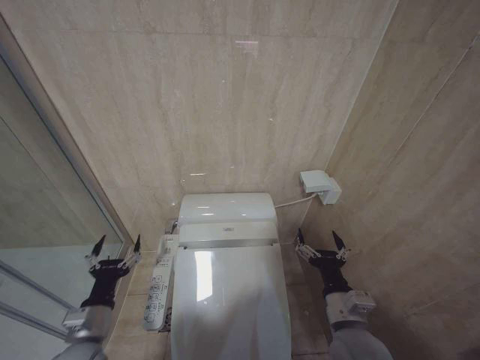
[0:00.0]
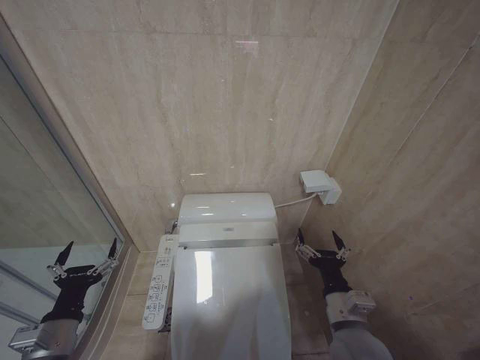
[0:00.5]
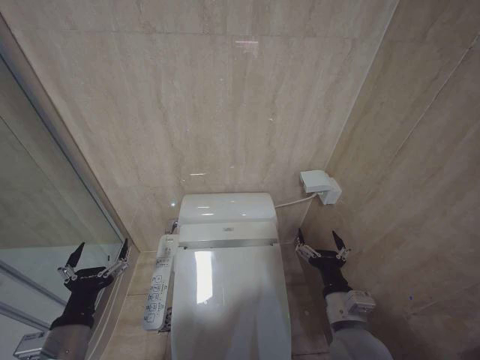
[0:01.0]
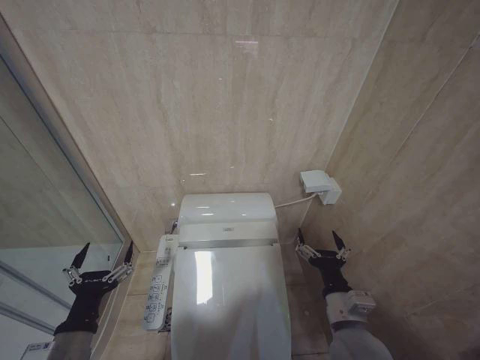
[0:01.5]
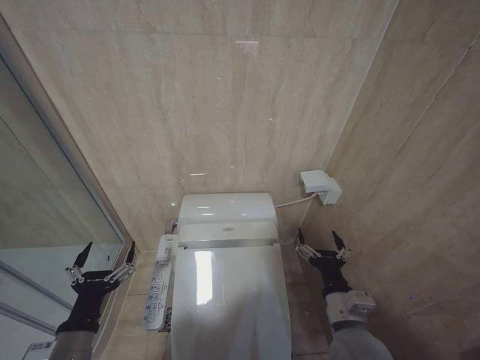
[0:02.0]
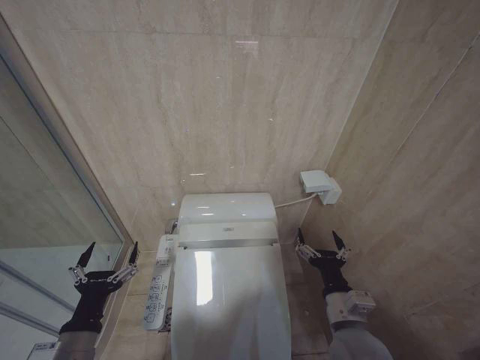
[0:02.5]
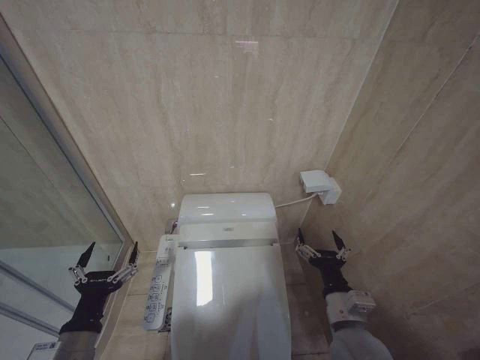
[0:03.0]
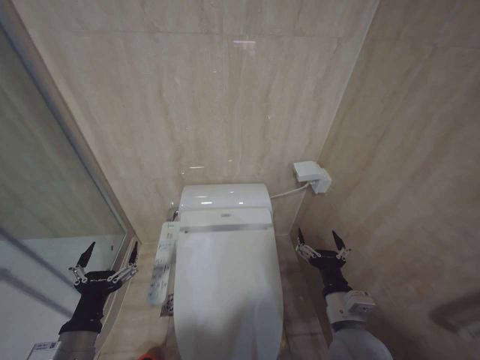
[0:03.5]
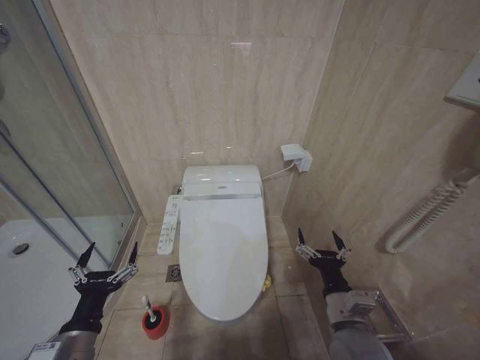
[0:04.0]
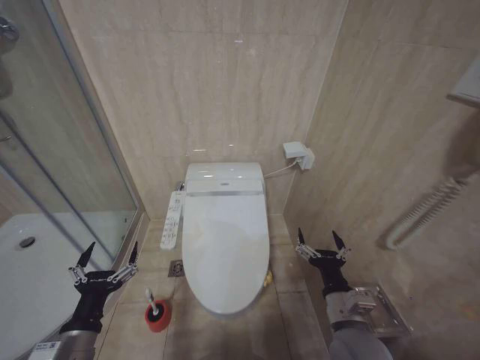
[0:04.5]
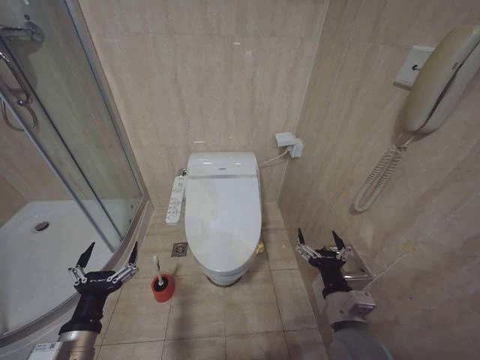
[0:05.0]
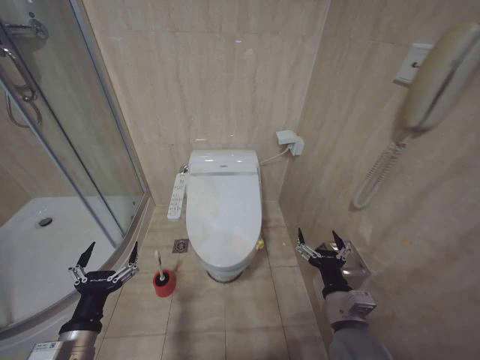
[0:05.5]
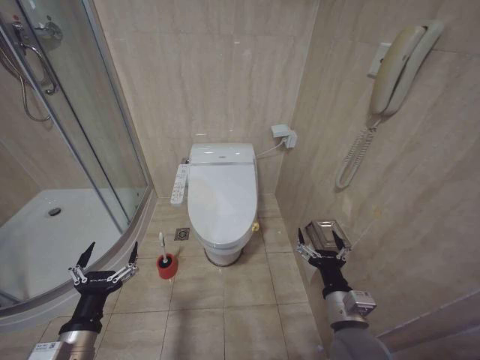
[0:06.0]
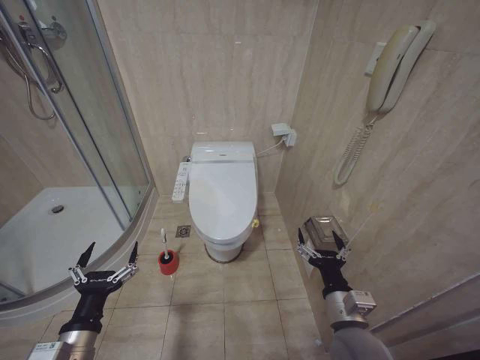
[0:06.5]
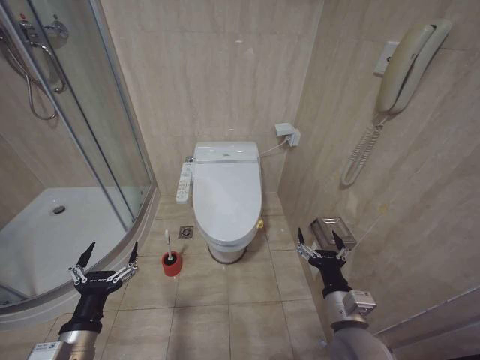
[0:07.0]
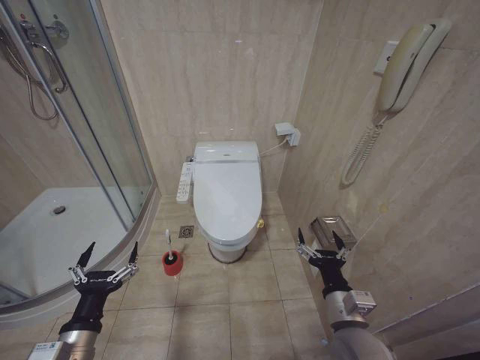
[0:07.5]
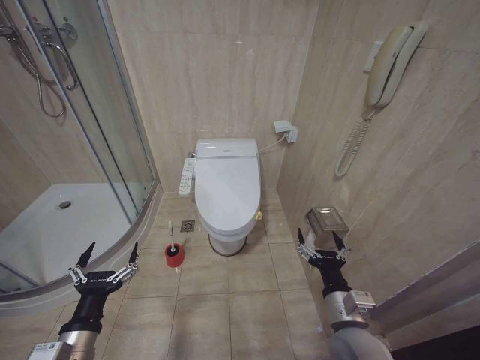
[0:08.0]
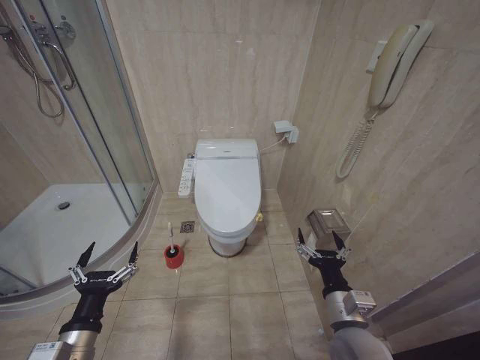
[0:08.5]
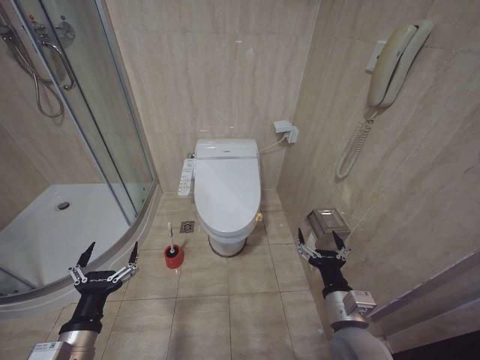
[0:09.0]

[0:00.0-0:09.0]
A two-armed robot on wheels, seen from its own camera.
Task of the whole recording: Open the toilet lid, clean the toilet bowl with a toilet brush, close the toilet lid, and flush.
0:00.0 to 0:02.0: The left gripper moves backward, about 5 cm, and opens its fingers.
0:07.0 to 0:09.0: Both grippers stay put.
